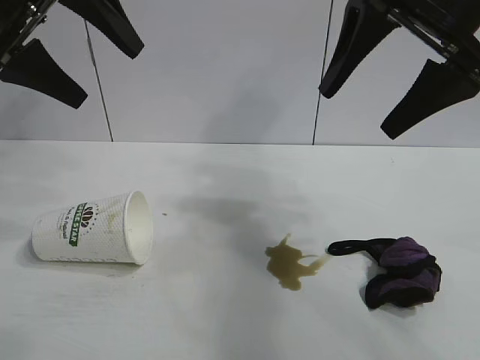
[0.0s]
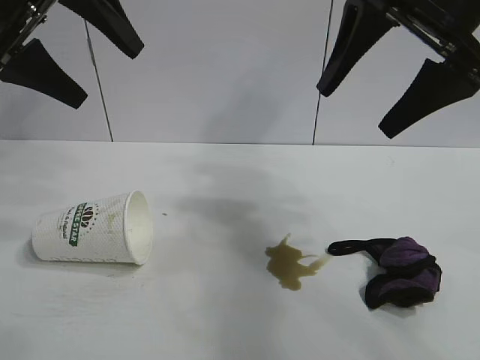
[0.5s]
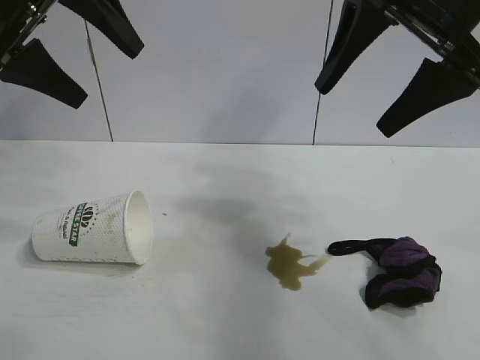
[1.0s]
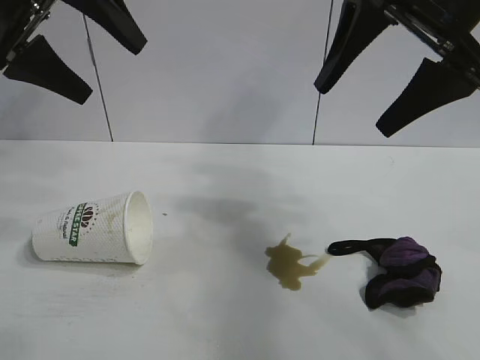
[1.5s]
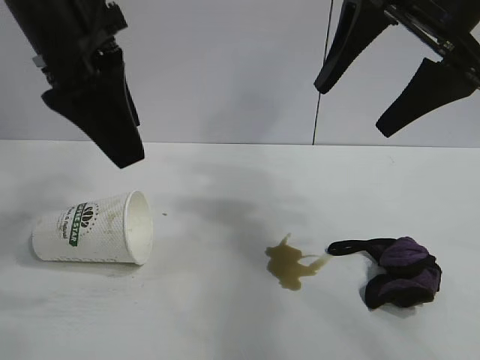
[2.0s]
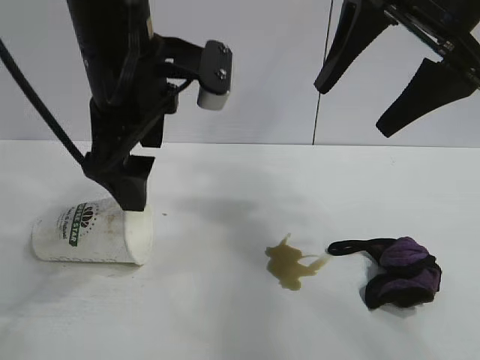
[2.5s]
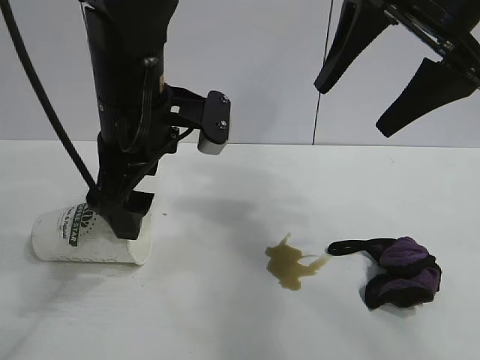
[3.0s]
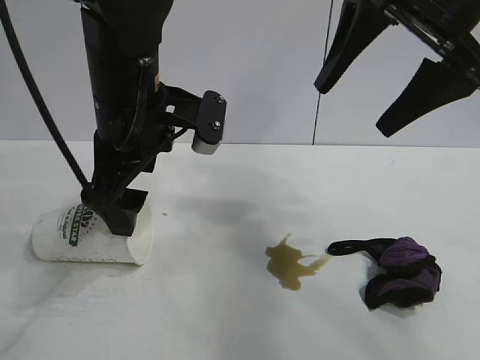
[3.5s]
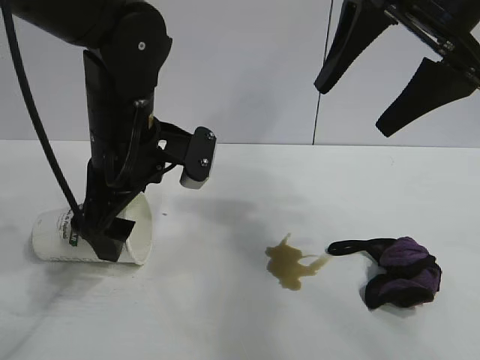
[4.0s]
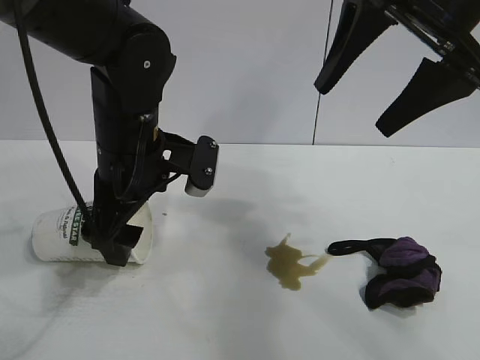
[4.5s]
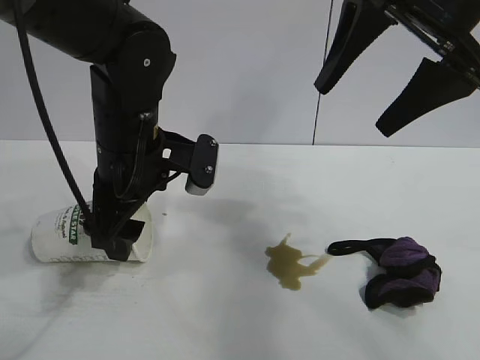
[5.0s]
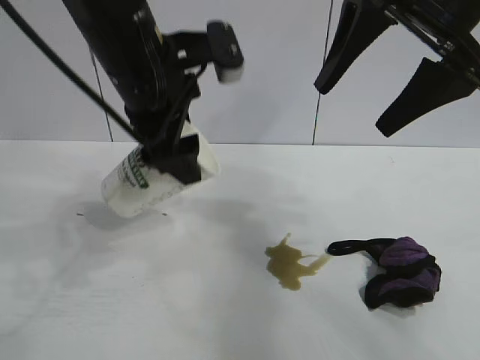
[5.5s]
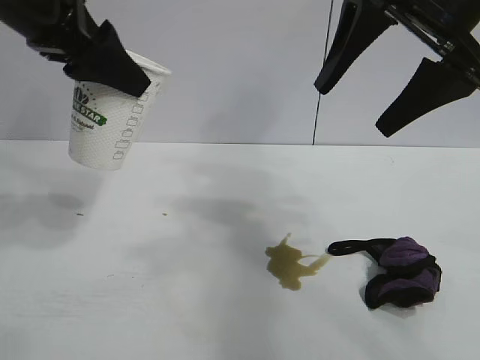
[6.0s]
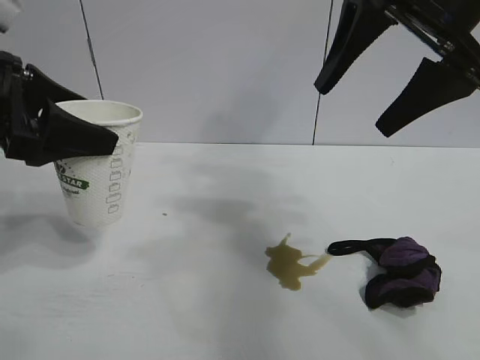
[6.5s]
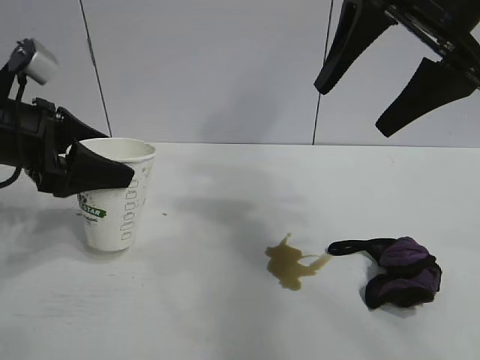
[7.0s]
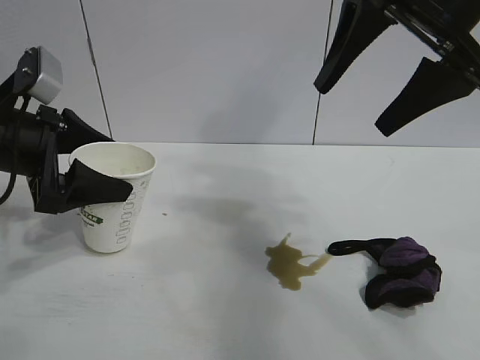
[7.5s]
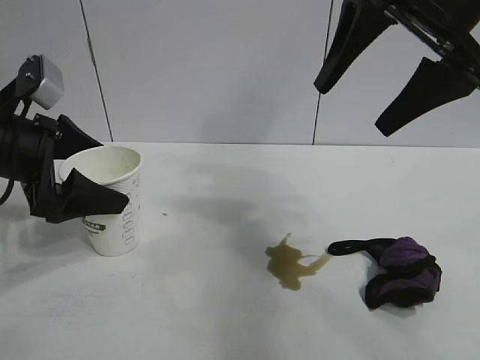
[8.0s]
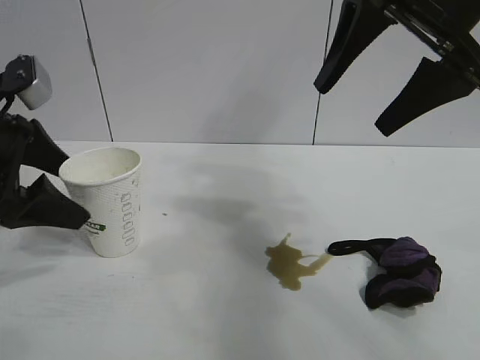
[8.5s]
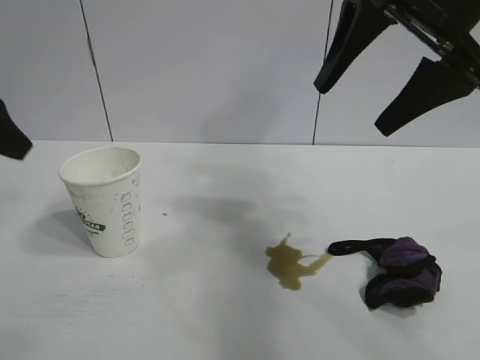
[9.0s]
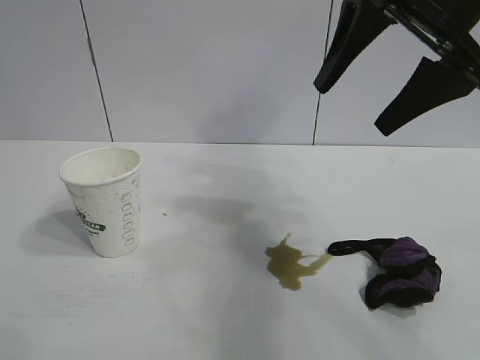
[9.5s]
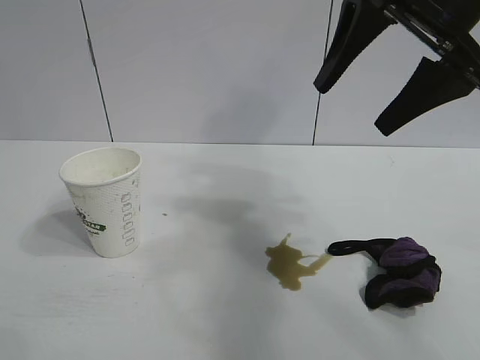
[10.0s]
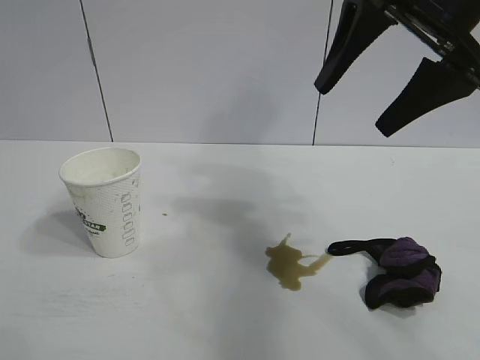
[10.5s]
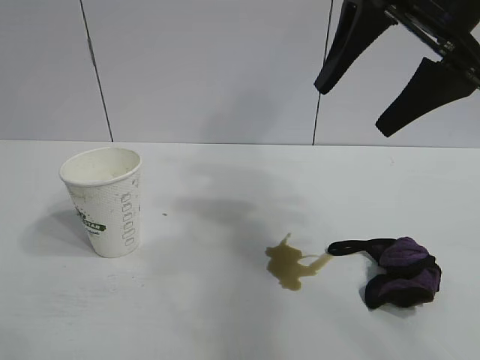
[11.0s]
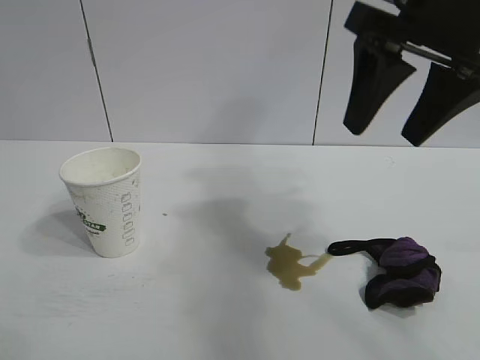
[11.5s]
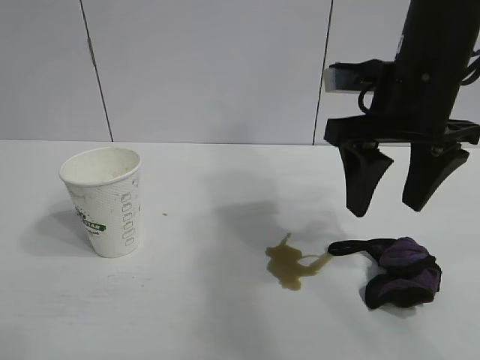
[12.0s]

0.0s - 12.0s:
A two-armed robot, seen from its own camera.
Task of the whole recording: the left gripper pick up the fallen cup and place it upright, the right gripper grasp the black rag and wipe the stain on the table, the right gripper put the black rag back in its original position.
Step, 0.0s - 5.0s: Grasp the paper cup with left gripper.
Step, 5.5s - 7.5s: Stand the paper cup upright with left gripper.

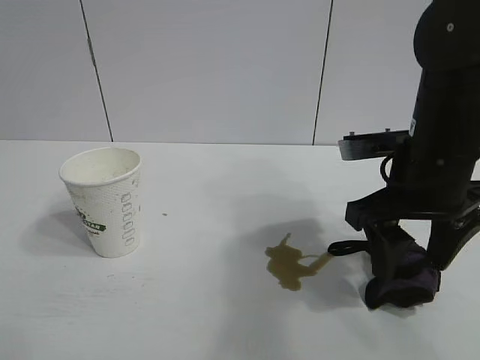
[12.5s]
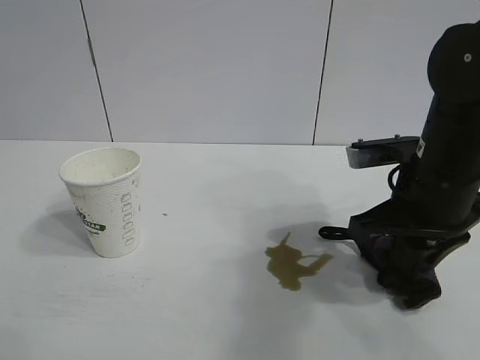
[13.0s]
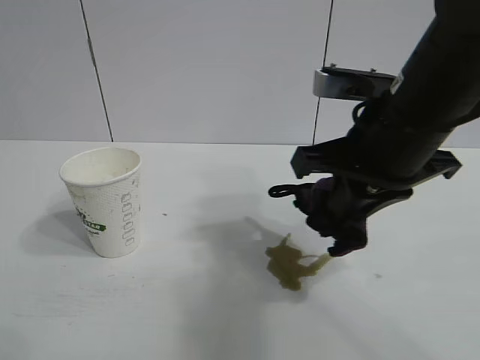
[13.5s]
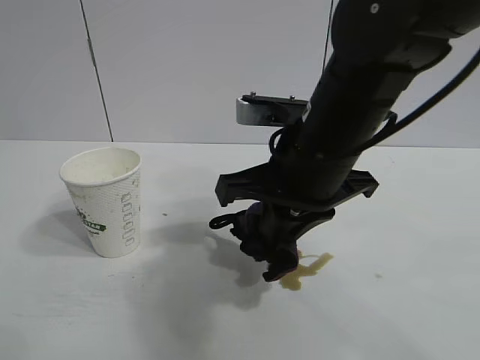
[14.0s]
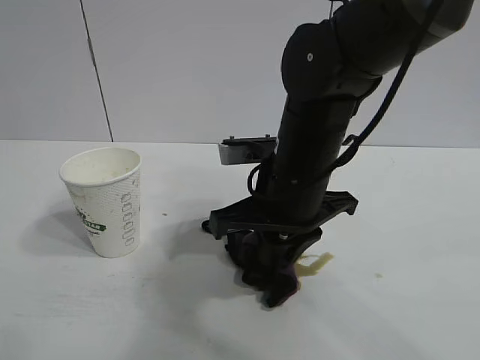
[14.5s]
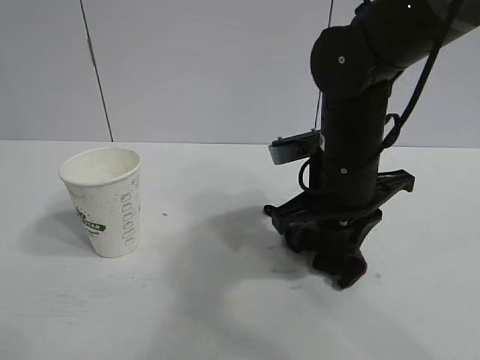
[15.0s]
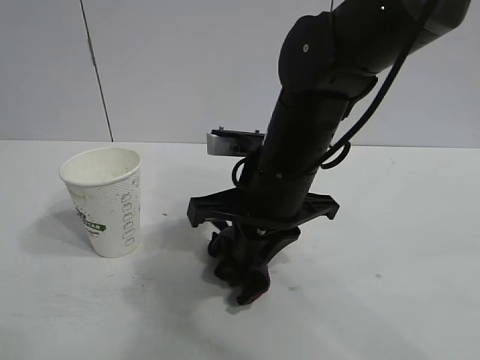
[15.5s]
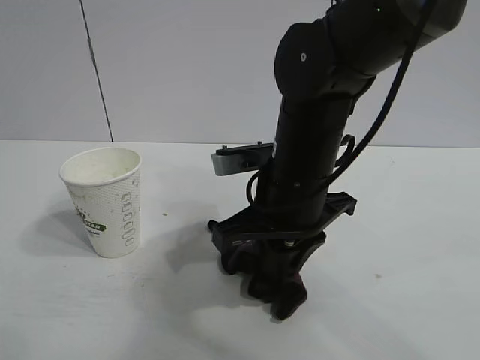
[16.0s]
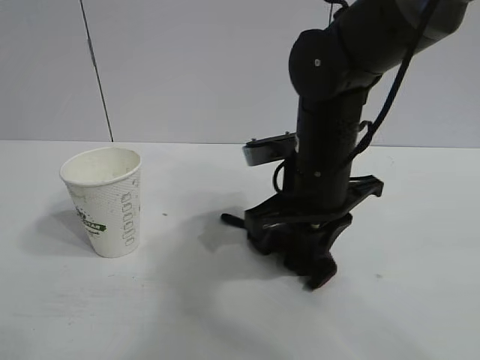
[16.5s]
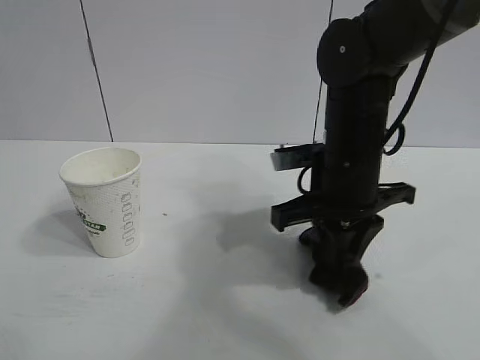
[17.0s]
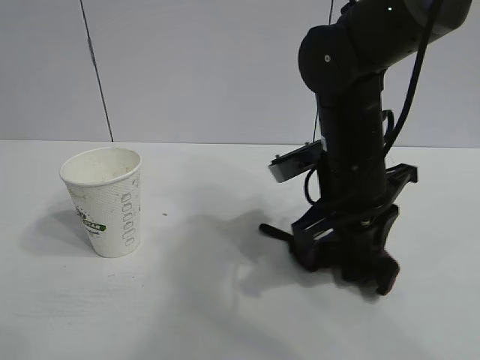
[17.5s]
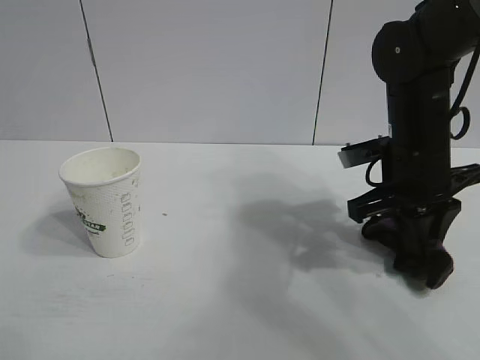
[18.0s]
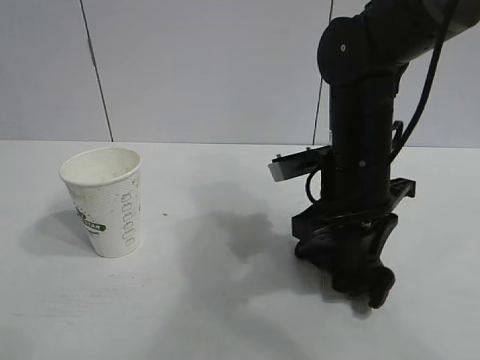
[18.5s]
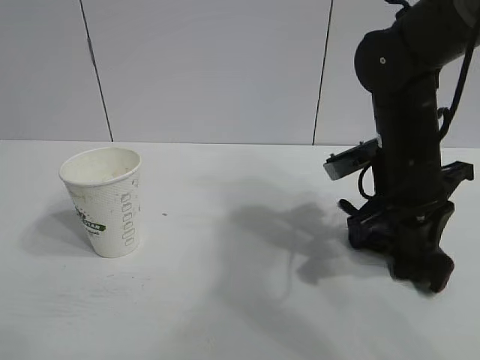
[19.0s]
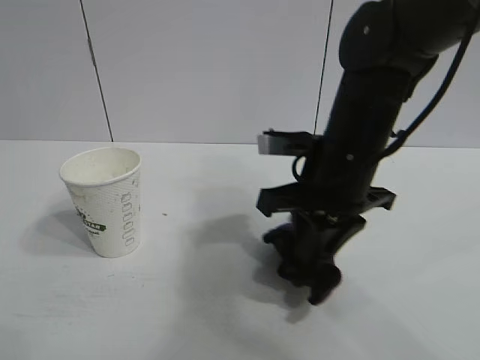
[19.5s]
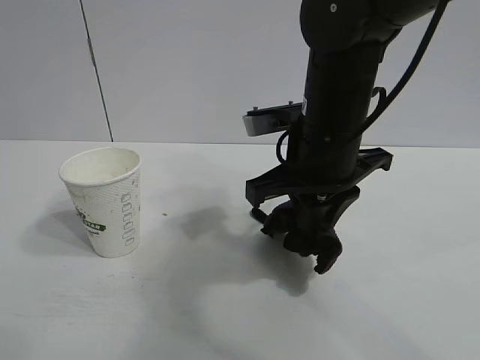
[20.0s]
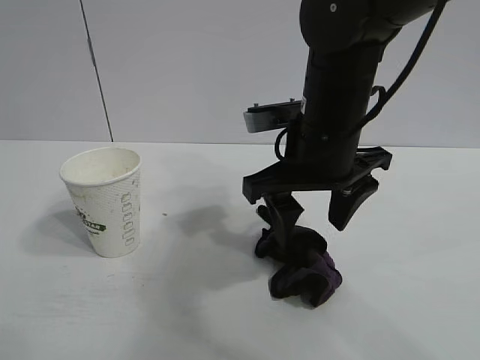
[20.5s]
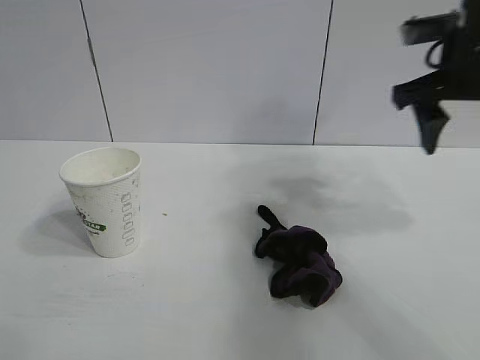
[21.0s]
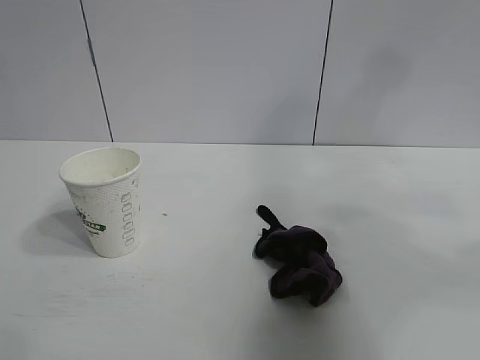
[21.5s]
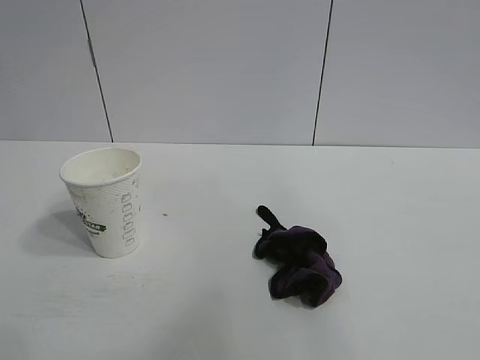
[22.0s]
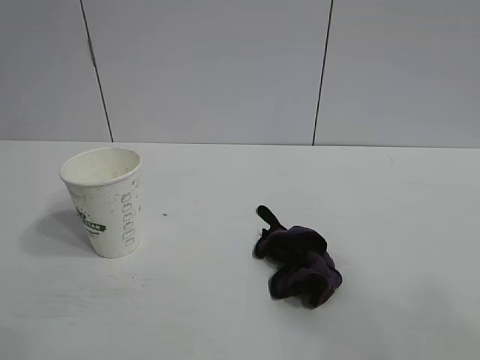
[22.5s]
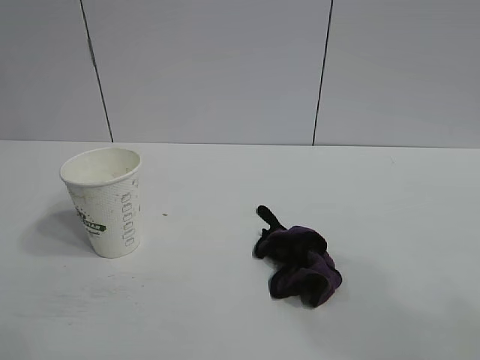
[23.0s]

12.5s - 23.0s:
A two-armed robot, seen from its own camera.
Task of the whole recording: the left gripper pick up the fallen cup and place it upright, the right gripper grasp the black rag and wipe the stain on the table, the right gripper put the black rag back in its original position.
Step, 13.5s - 19.0s: Wipe the stains off the table with the rag with right gripper.
Step, 19.5s - 20.0s: Place the rag on the table with right gripper.
